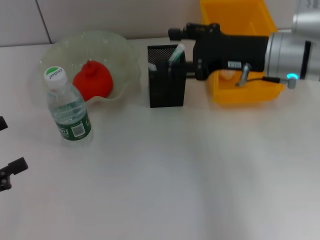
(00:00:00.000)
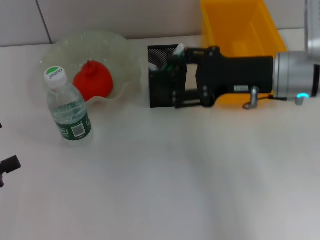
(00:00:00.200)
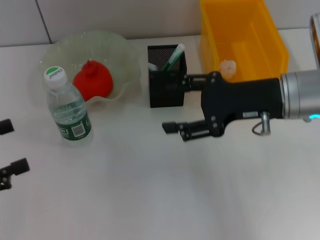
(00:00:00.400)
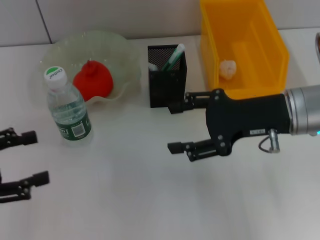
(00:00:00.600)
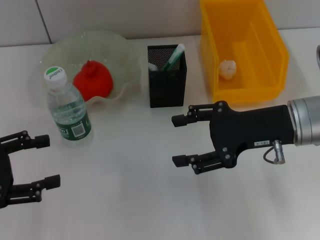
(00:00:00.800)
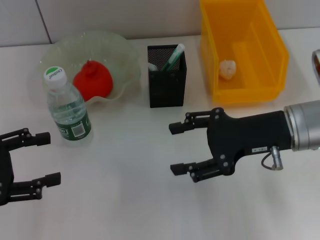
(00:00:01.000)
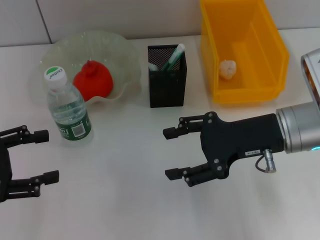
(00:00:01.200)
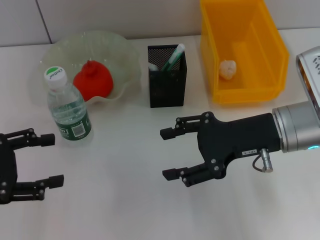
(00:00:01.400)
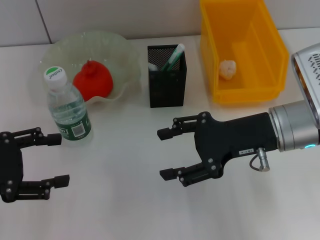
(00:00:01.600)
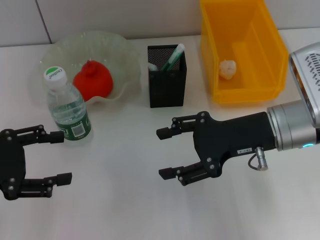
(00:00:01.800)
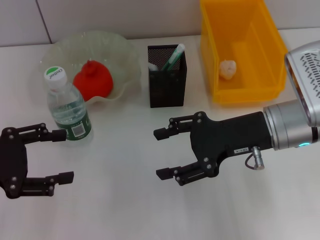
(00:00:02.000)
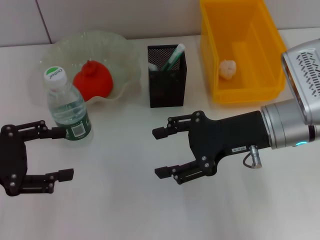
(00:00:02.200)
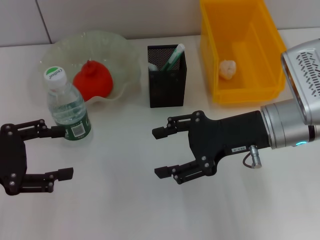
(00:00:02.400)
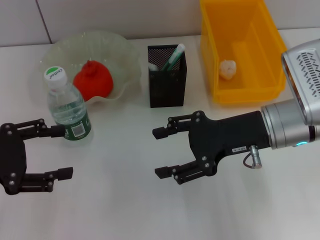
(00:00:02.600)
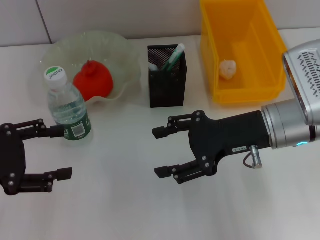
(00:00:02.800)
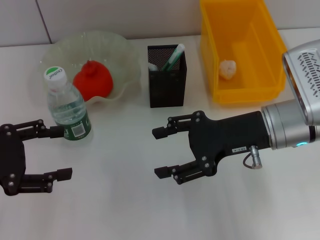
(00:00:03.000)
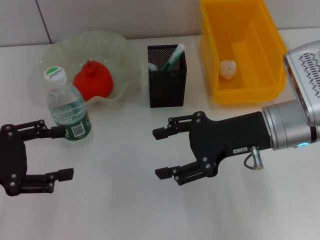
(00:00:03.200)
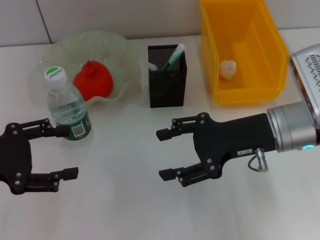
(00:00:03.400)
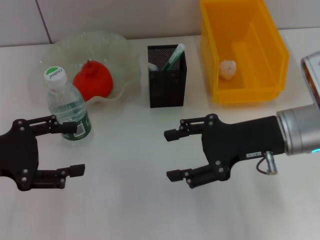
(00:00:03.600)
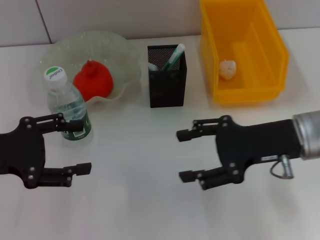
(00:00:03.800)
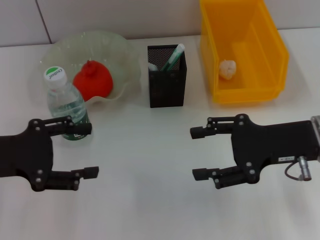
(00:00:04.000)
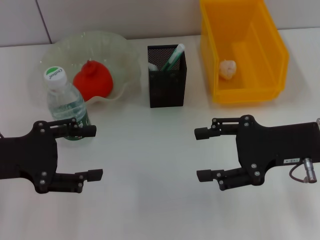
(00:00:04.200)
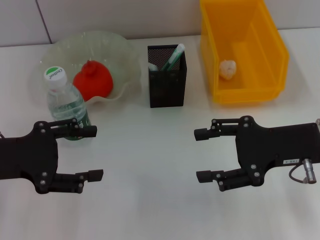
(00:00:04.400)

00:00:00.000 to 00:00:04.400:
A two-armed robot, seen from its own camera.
00:00:00.000 to 00:00:01.400: The left gripper moves roughly 5 cm. The right gripper heads backward, covering about 5 cm.
00:00:01.400 to 00:00:03.000: The grippers make only small movements.
00:00:03.000 to 00:00:04.400: The right gripper moves to the right, approximately 5 cm.
